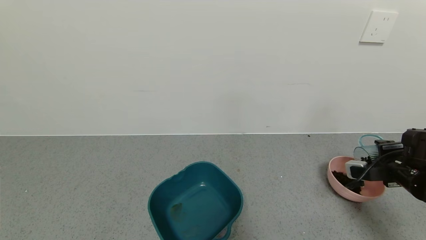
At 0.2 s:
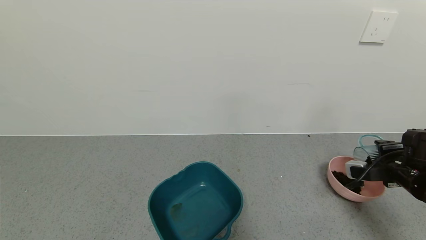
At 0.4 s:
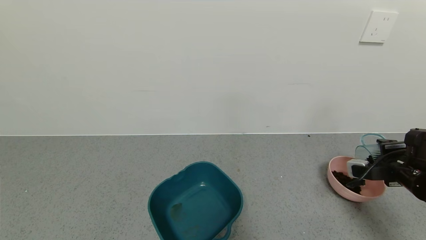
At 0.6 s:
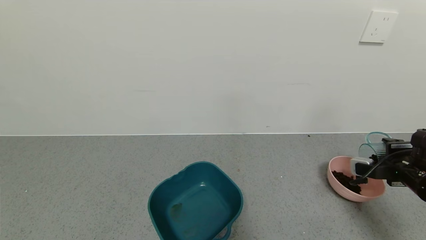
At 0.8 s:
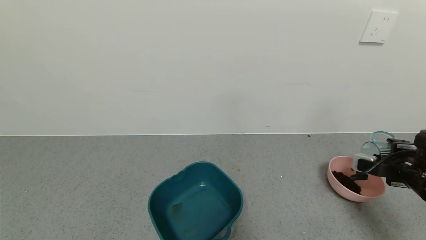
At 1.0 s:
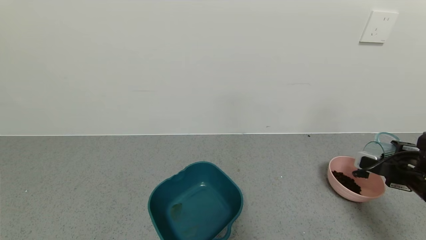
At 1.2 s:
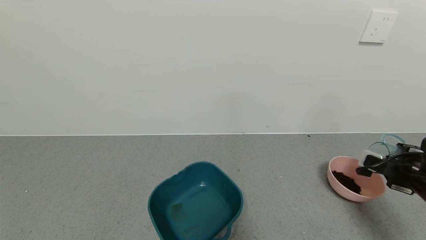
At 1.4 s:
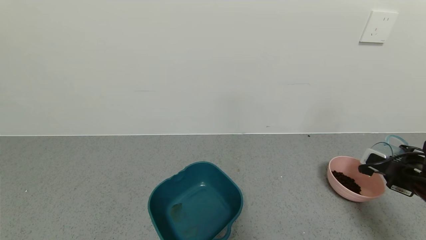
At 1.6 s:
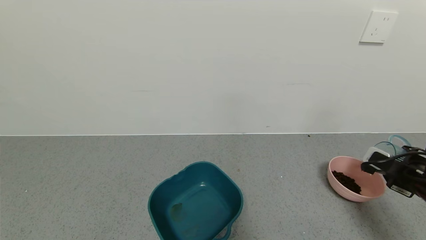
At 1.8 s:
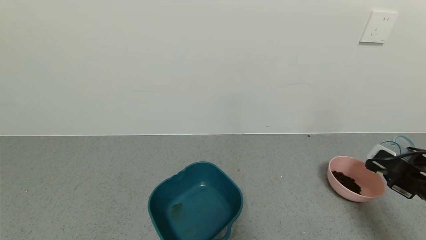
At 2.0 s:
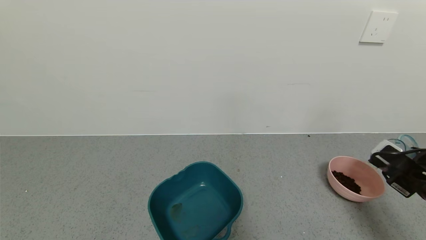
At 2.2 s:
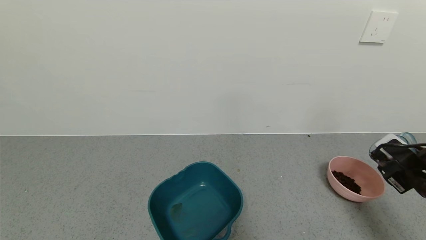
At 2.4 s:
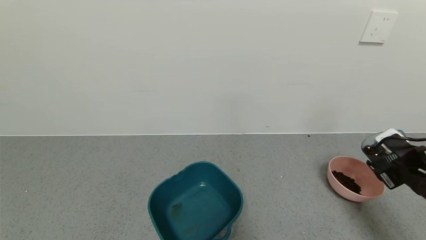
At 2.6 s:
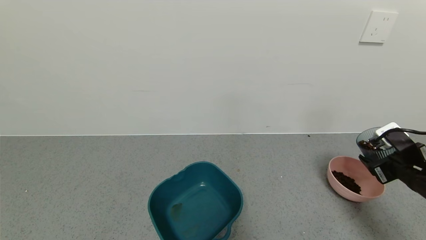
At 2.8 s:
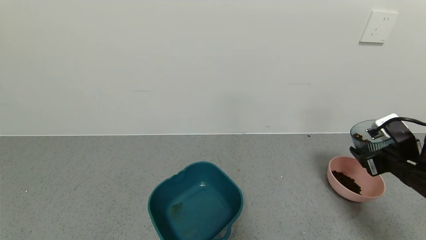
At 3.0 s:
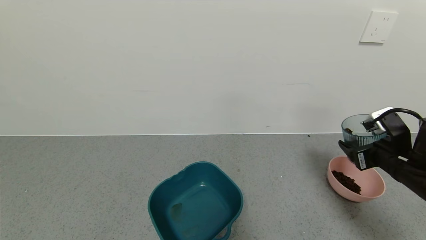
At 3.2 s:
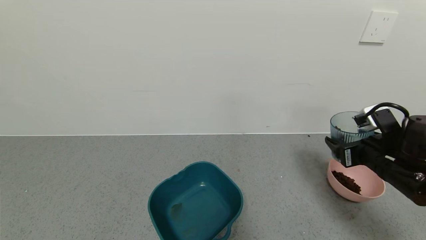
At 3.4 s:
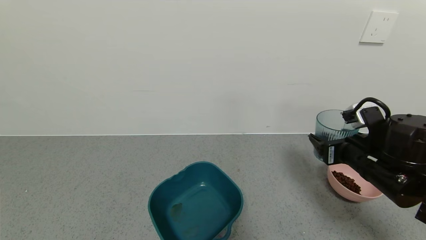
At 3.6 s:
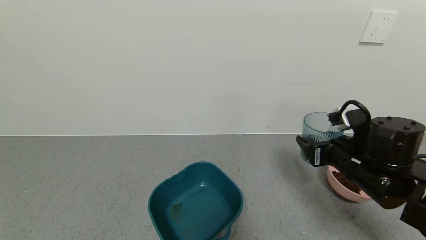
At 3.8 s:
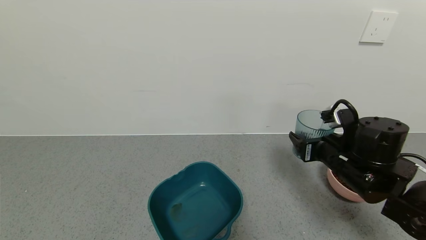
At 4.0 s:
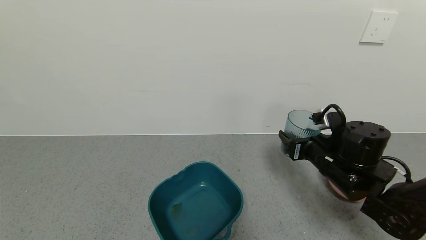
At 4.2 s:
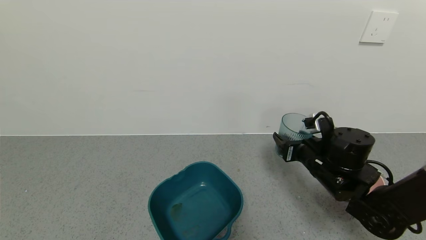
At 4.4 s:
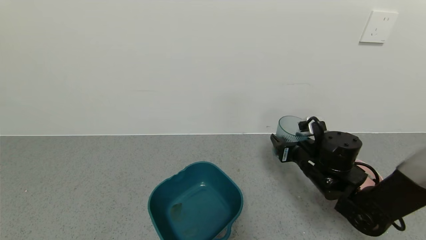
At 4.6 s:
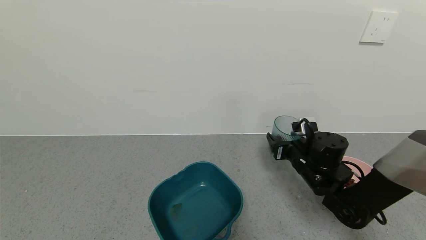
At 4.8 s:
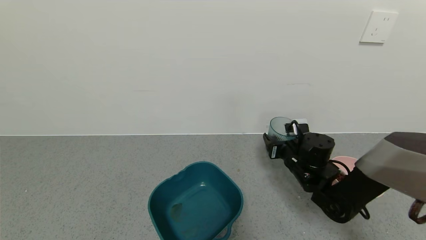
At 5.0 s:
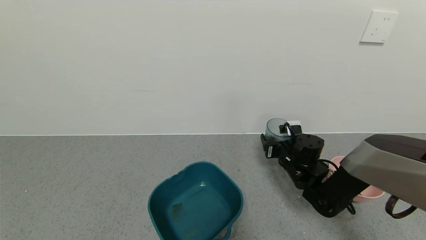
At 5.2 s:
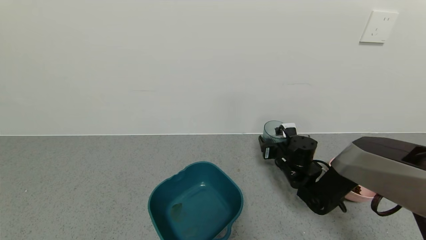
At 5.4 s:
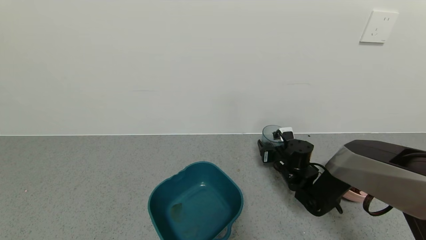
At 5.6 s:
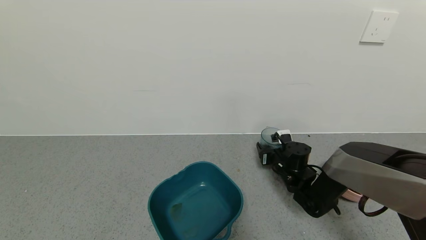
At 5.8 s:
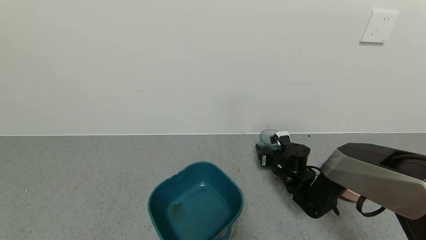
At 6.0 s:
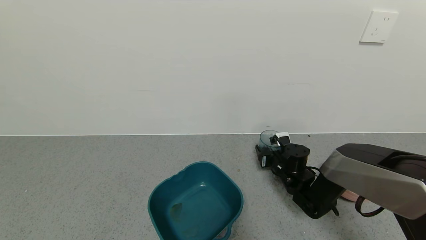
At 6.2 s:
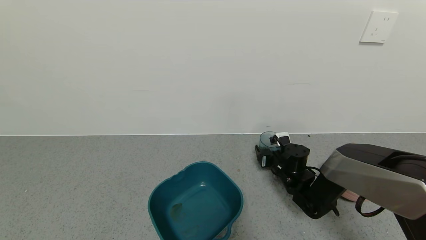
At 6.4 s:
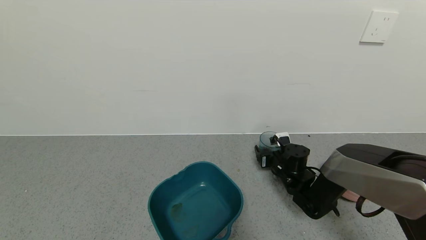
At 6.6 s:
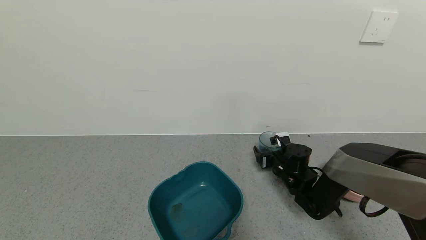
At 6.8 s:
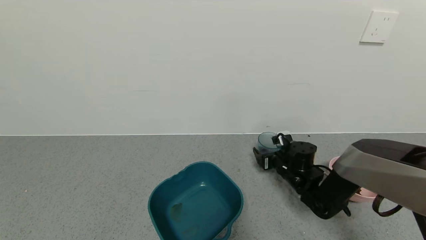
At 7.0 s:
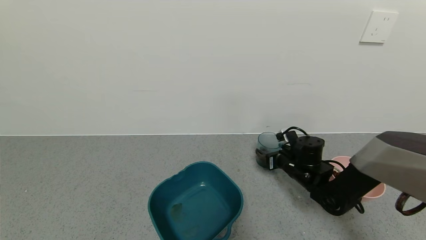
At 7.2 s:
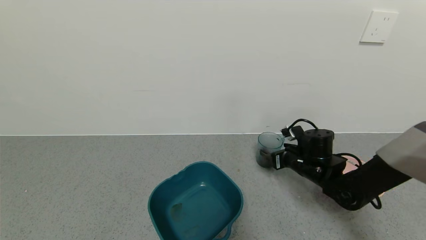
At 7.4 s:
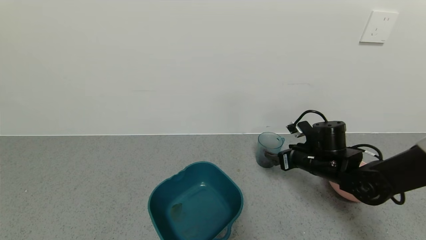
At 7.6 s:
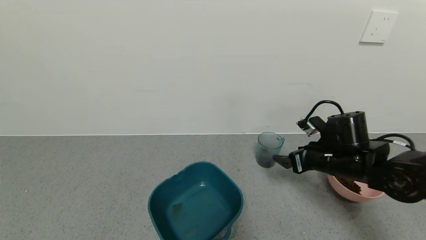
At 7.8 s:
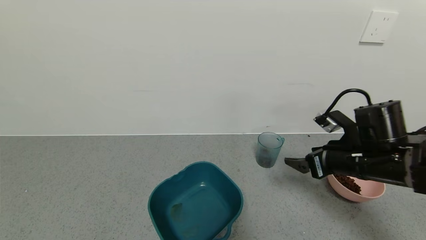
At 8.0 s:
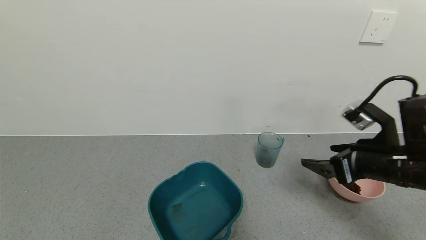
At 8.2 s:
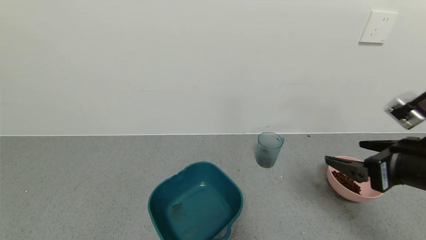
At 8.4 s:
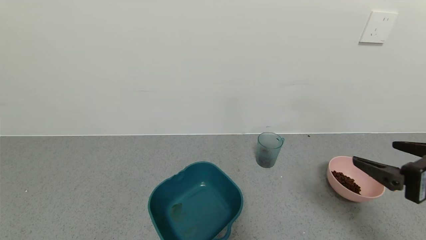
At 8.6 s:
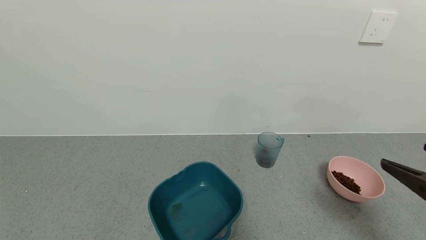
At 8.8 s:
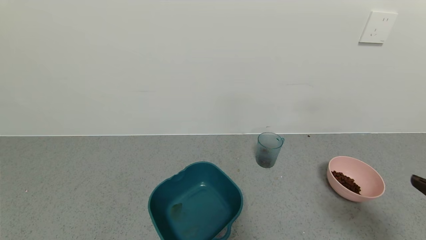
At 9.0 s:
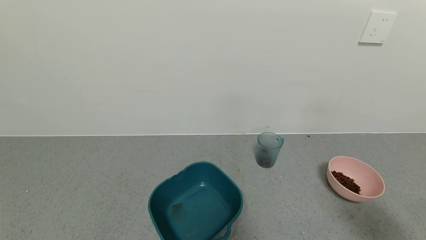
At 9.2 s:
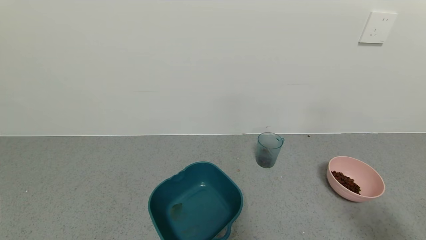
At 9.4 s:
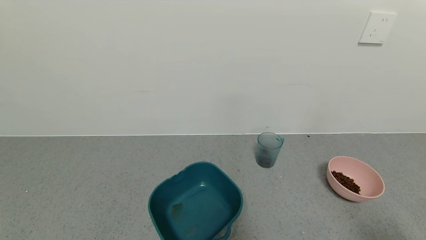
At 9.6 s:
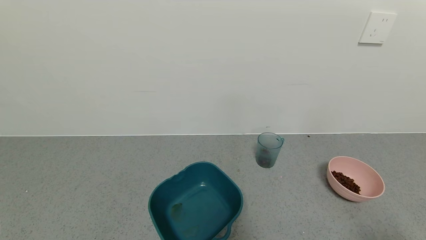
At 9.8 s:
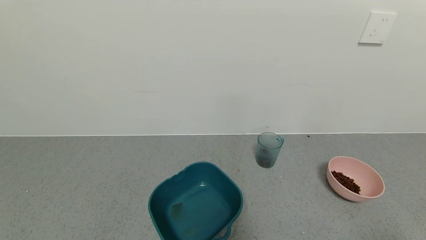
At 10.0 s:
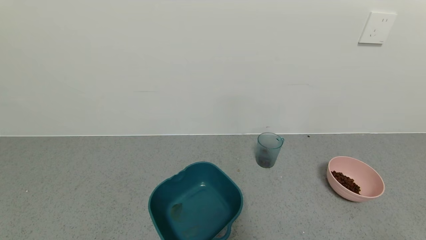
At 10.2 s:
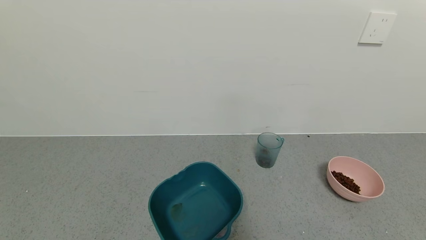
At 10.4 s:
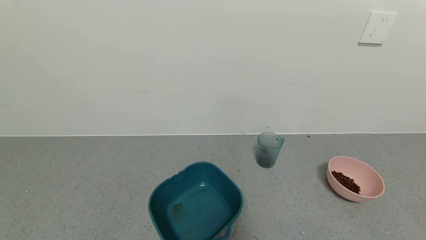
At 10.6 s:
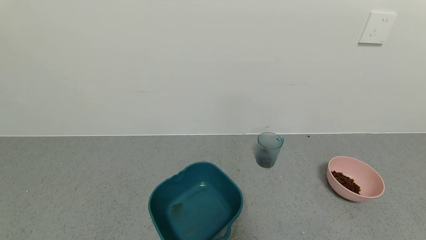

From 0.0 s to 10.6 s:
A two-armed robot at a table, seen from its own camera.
Task of the whole recording: use a gripper to pick up the cup and pour the solid into a bowl or tray.
Step, from 0.0 s to 2.4 s: Pour the coffee beans into the pink bowl with the right gripper.
Step, from 2.6 s to 7.4 s: Place the glass cup with the right gripper.
From 1.6 s to 3.0 s: The right gripper travels to the left by some 5 cm.
From 3.0 s to 4.6 s: The right gripper moves to the left, forward and downward, roughly 15 cm.
From 4.6 s to 6.0 s: The right gripper heads downward and forward, covering approximately 10 cm.
From 6.0 s to 7.6 s: The right gripper goes approximately 15 cm upward, backward and to the right, and opens its fingers.
From 7.6 s to 9.0 s: The right gripper goes roughly 30 cm backward, to the right and upward.
From 9.0 s to 10.6 s: The right gripper heads downward and backward, covering some 15 cm.
